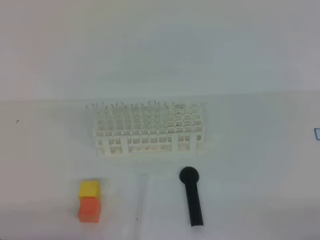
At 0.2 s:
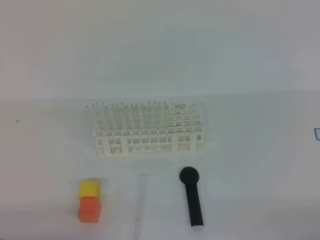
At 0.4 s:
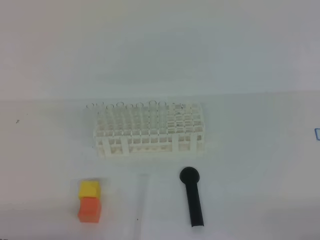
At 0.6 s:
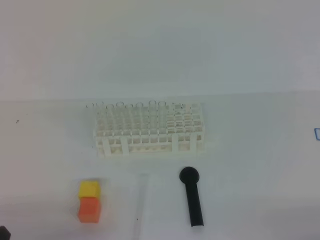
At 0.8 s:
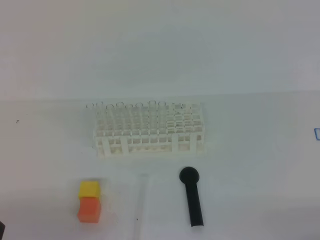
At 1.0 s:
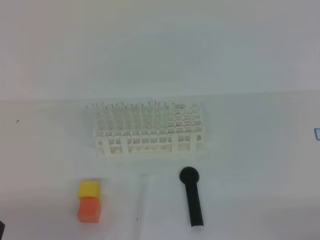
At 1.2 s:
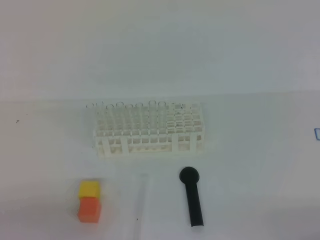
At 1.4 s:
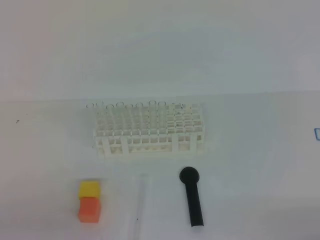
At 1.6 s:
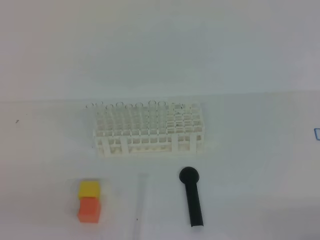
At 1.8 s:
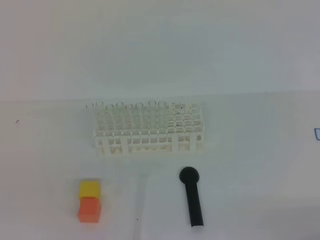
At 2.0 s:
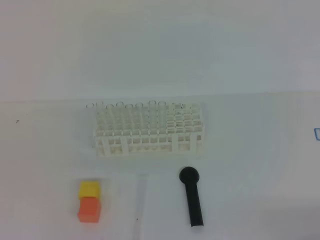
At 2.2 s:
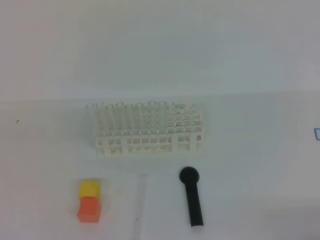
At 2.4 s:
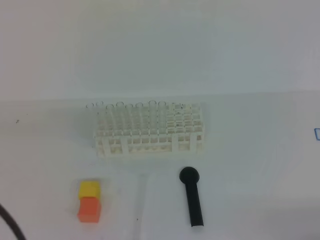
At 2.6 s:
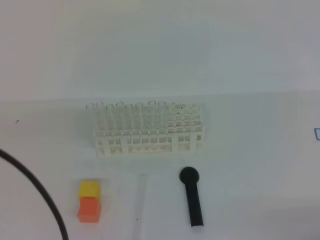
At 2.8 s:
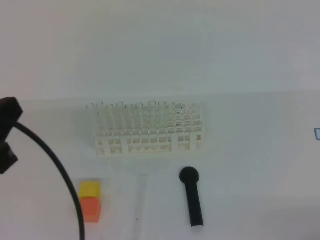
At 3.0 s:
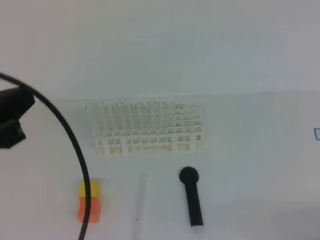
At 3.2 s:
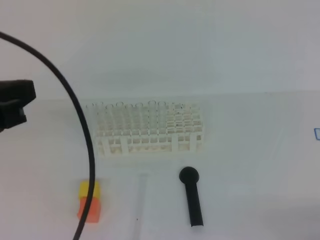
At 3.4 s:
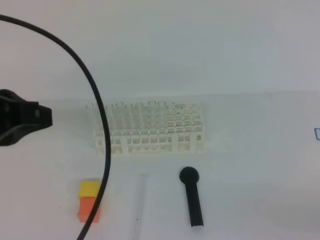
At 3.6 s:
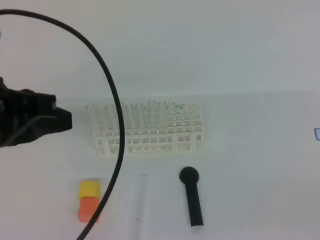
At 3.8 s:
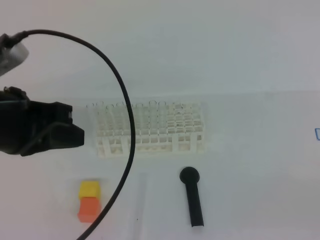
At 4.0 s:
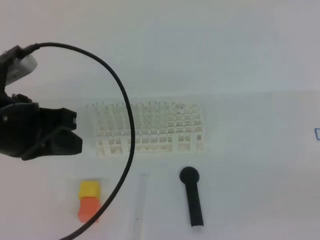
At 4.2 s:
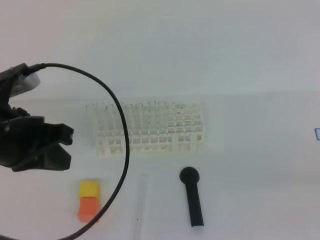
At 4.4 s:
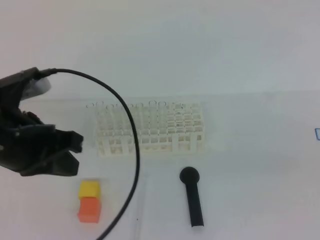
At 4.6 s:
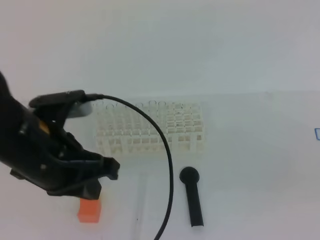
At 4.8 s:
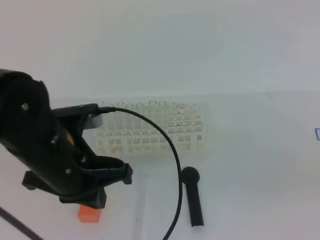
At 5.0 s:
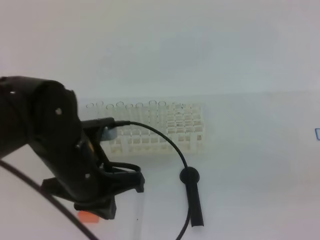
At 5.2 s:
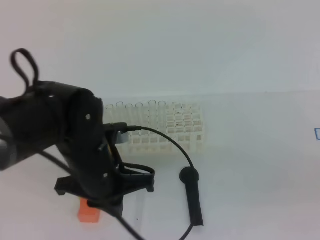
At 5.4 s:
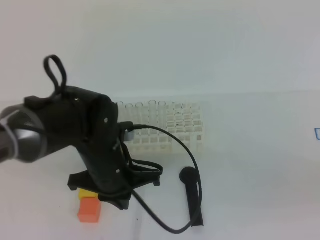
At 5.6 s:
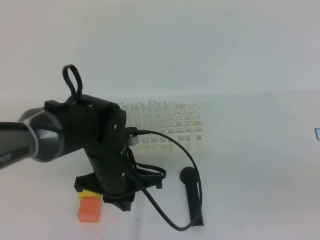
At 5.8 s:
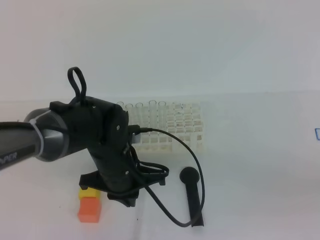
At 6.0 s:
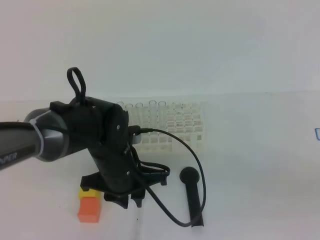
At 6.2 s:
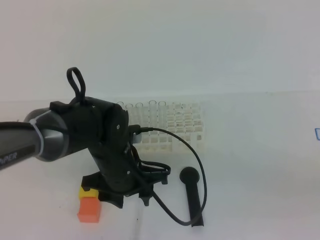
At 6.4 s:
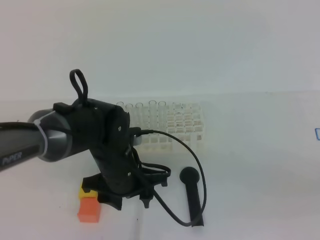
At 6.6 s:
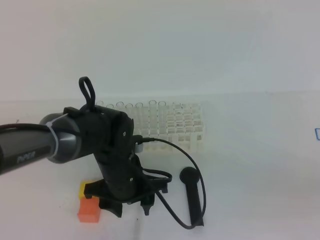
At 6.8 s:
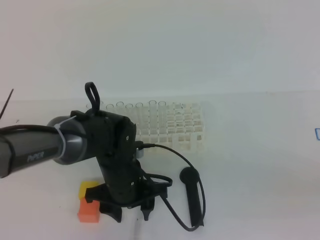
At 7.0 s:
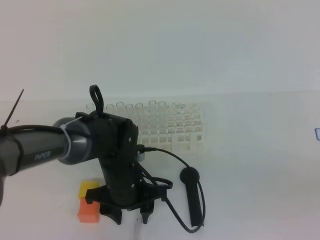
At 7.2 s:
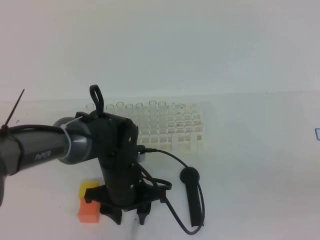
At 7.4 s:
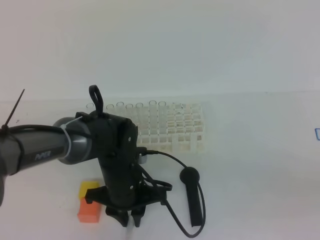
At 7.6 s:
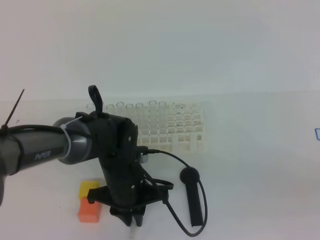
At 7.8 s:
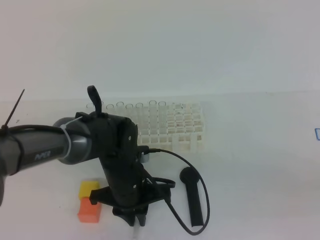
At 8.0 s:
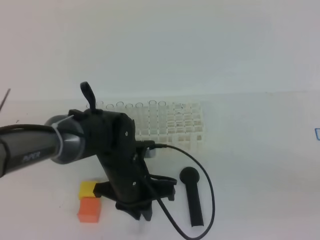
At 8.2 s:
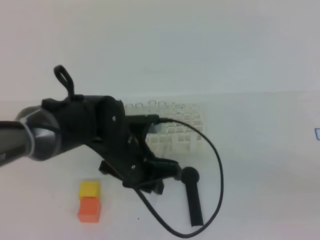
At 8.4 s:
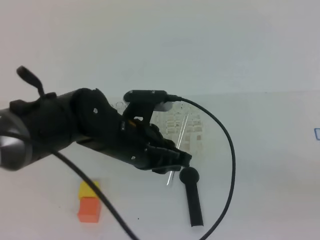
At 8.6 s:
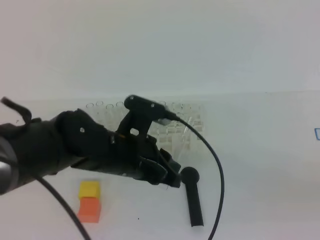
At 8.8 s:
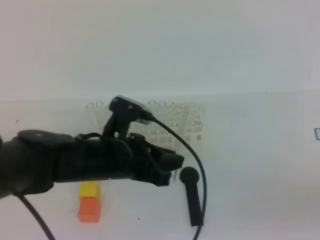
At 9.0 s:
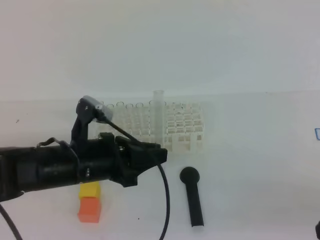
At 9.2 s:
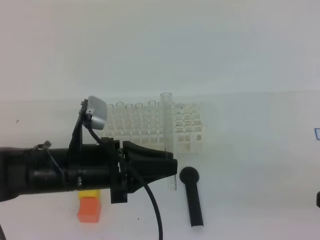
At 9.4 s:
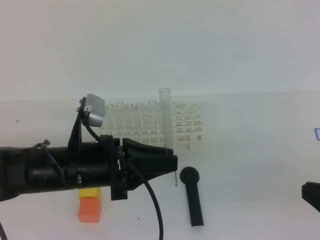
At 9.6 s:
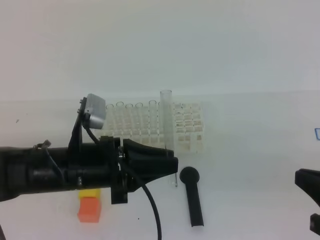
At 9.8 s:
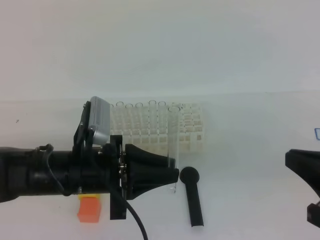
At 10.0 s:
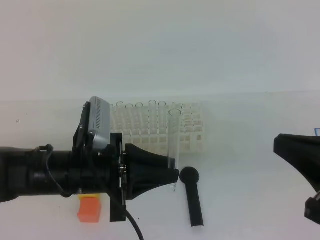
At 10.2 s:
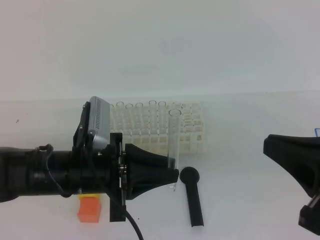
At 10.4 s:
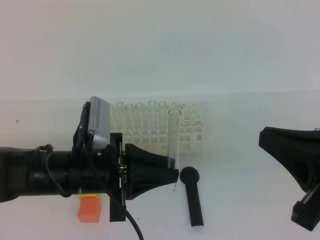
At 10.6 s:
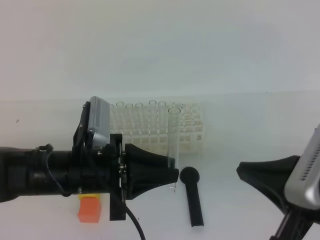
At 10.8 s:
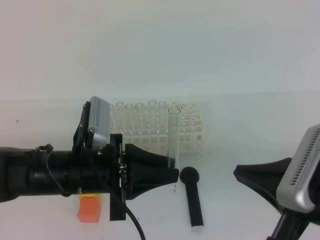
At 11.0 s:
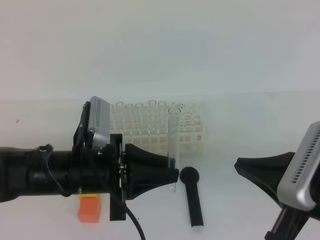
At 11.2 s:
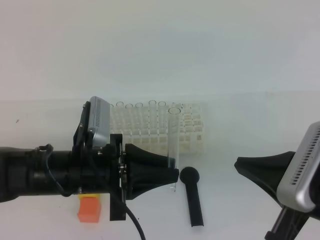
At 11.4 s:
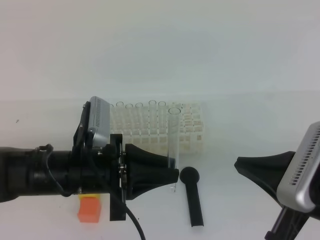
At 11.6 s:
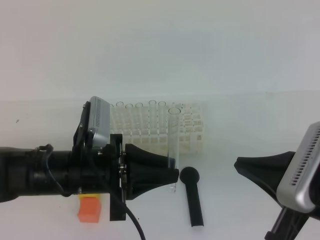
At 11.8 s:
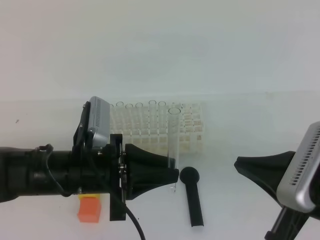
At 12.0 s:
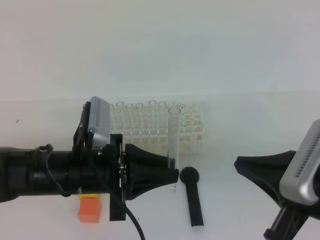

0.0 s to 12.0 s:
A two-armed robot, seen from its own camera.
1.6 to 3.0 s: The left gripper heads upward, forward and to the right, covering approximately 15 cm.
3.0 to 4.4 s: The left gripper shifts roughly 10 cm forward. The right gripper is displaced upward by about 15 cm.
4.4 to 6.0 s: The left gripper goes some 20 cm downward, to the right and forward, and opens up.
6.0 to 7.6 s: The left gripper ends up approximately 5 cm from where it was, and closes up.
7.6 to 9.0 s: The right gripper changes place by some 5 cm. Meanwhile the left gripper heads upward, covering roughly 5 cm.
9.0 to 10.4 s: The right gripper shifts about 5 cm to the left.
10.4 to 12.0 s: The grippers move only a little.

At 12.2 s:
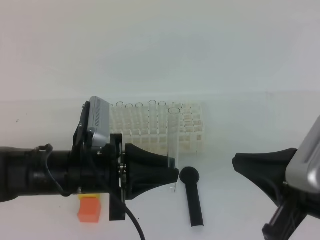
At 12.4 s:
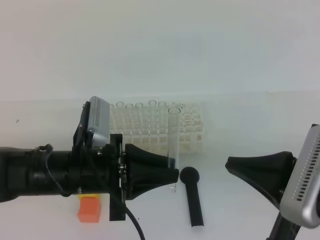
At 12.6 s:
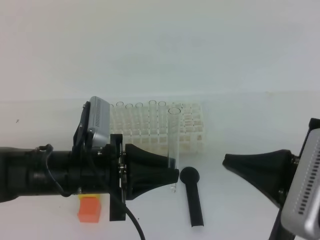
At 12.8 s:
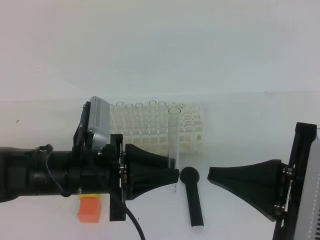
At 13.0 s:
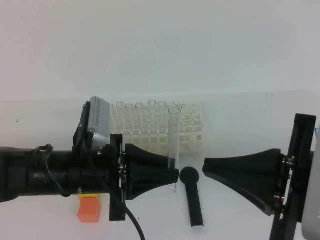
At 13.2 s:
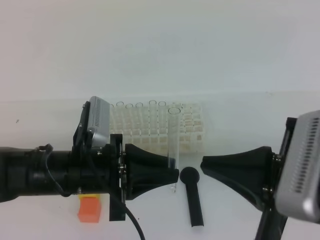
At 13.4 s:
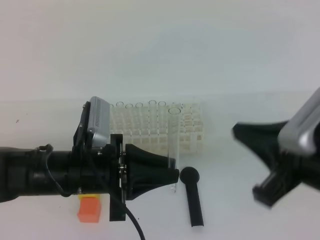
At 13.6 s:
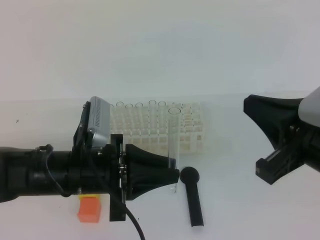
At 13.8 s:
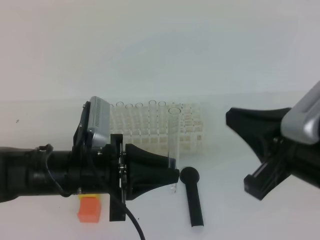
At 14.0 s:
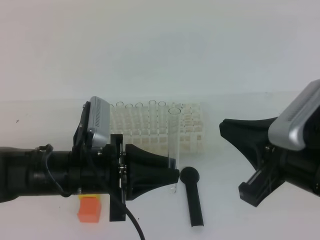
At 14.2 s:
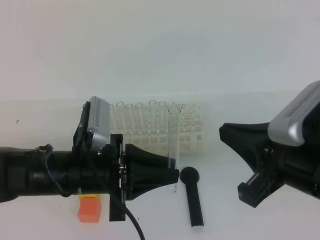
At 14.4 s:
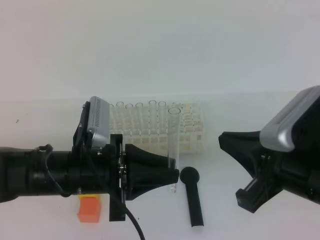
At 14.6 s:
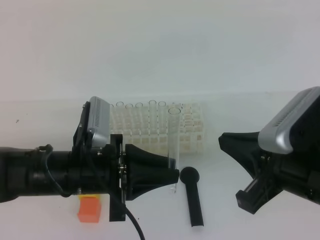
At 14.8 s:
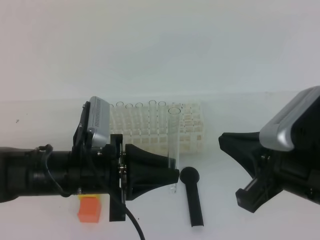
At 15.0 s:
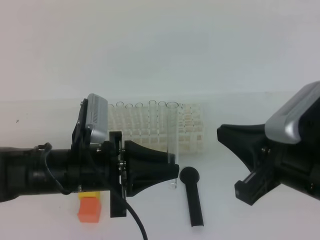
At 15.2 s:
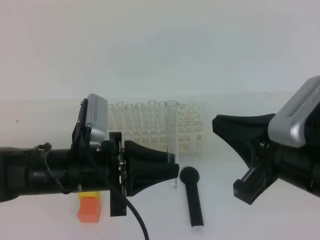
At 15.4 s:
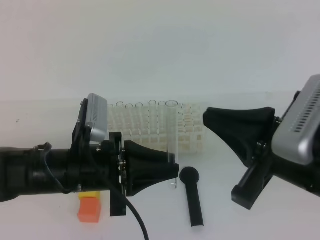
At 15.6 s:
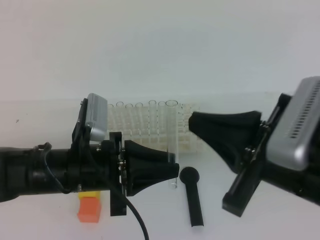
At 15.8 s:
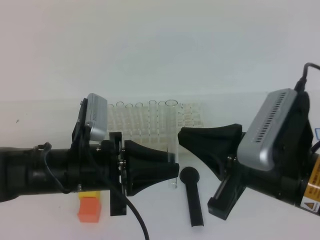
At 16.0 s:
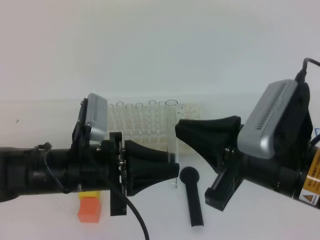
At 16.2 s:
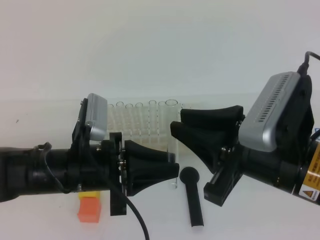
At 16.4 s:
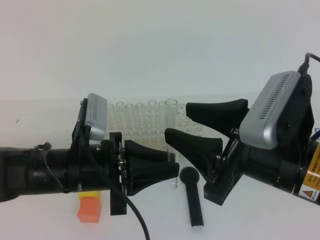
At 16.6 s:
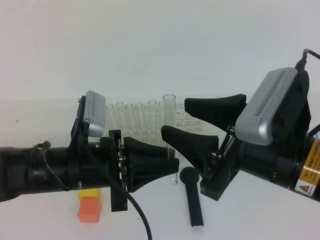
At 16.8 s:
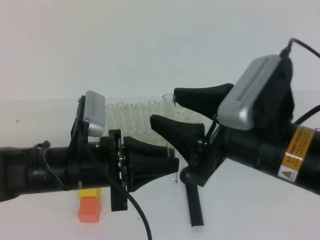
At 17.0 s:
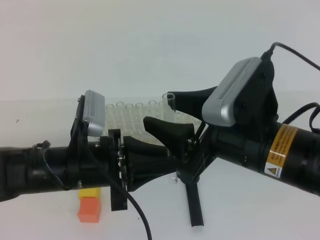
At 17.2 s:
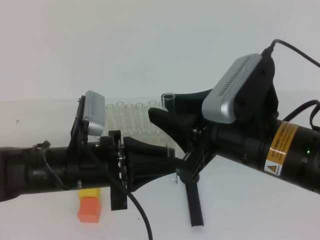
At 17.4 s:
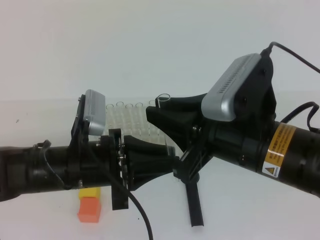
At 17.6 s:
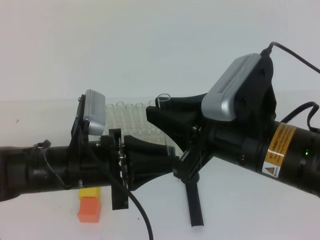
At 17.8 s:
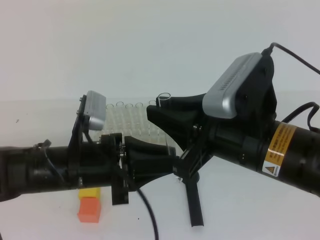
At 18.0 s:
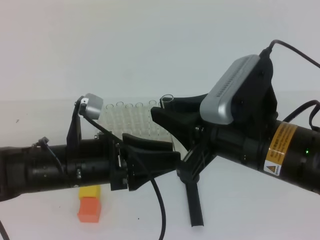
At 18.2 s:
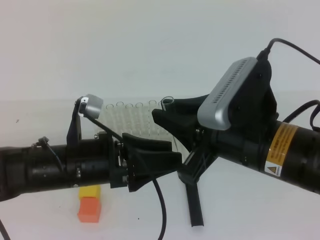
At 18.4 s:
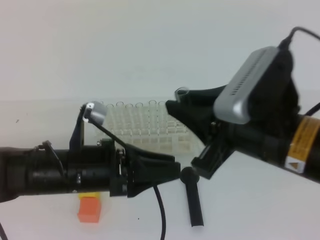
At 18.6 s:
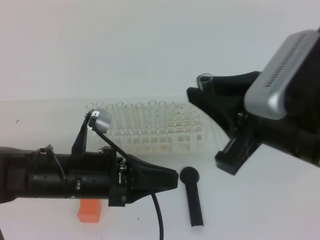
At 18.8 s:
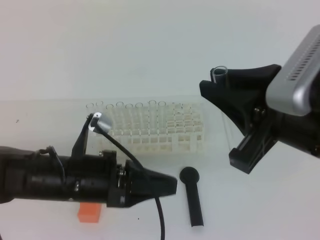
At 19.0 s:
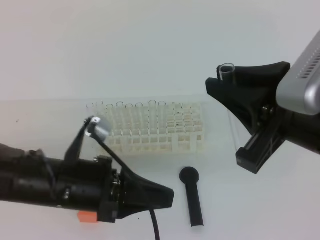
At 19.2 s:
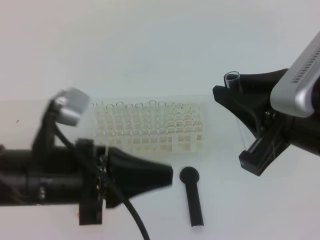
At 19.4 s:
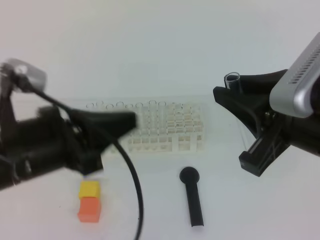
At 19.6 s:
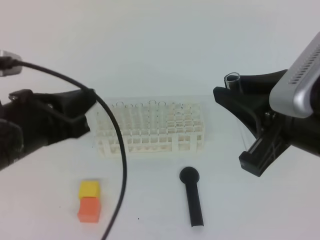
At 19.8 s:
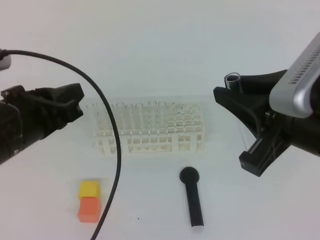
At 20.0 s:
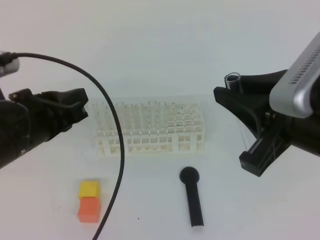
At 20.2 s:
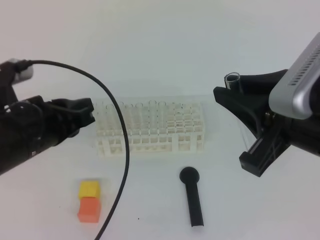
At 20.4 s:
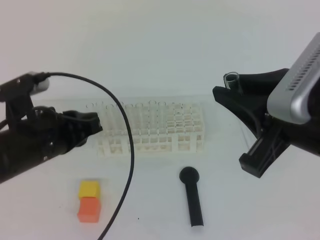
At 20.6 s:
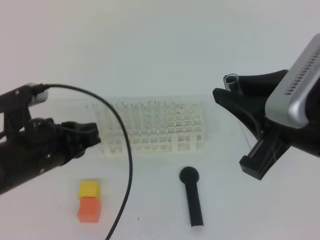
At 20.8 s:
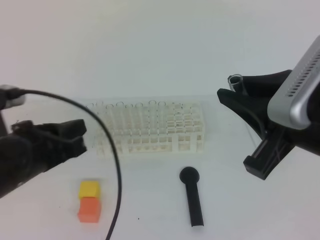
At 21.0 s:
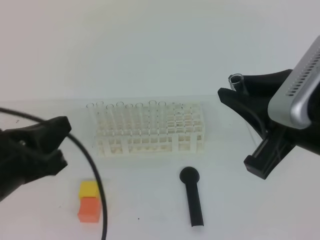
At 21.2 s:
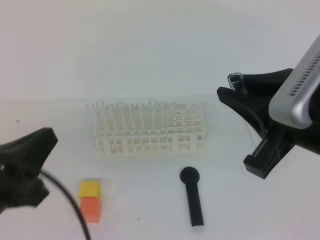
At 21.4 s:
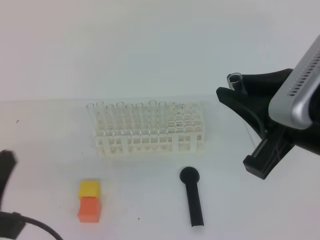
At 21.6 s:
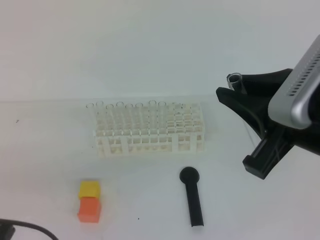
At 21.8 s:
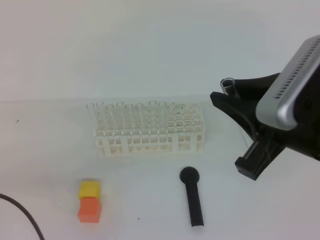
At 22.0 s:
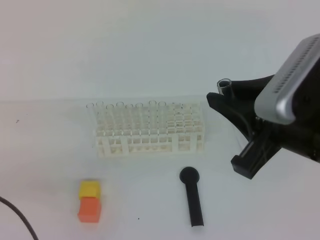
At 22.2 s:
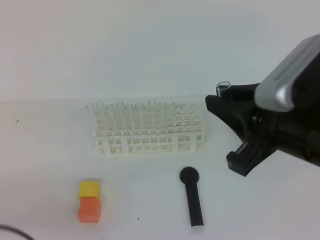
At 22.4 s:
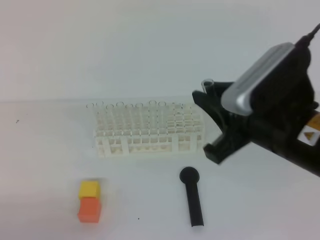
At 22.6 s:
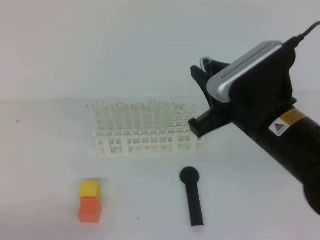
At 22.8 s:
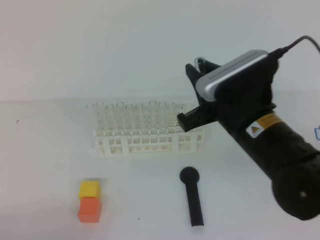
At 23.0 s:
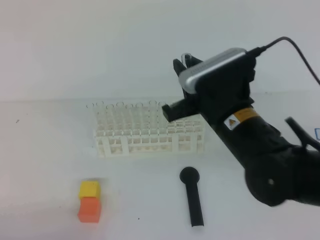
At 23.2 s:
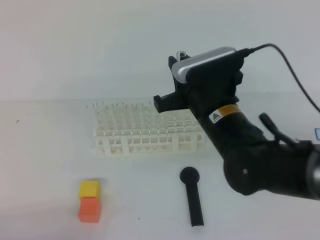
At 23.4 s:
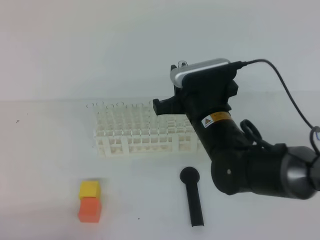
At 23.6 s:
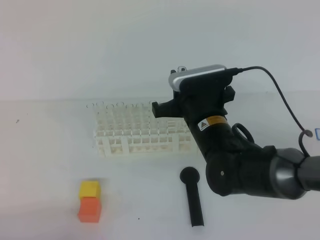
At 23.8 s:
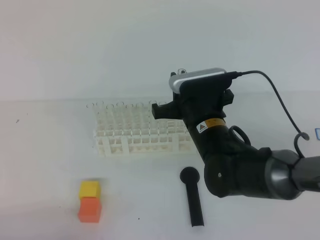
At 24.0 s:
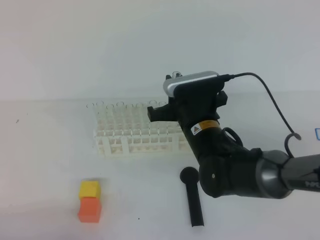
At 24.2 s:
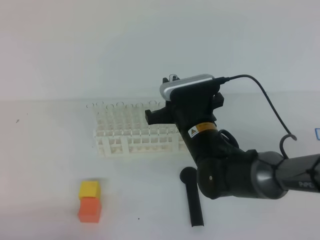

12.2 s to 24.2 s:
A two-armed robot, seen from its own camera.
12.2 to 15.2 s: The grippers move only a little.
15.2 to 16.6 s: The right gripper opens its fingers.
16.6 to 18.2 s: The right gripper closes up. Meanwhile the left gripper opens.
18.2 to 19.8 s: The right gripper goes some 5 cm to the right. Meanwhile the left gripper heads upward and to the left, covering approximately 10 cm, and closes its fingers.
19.8 to 21.2 s: The left gripper heads backward, covering about 10 cm.
21.2 to 22.6 s: The right gripper heads forward and downward, covering roughly 10 cm; the left gripper goes some 15 cm downward, backward and to the left.
22.6 to 24.2 s: The right gripper is displaced downward, forward and to the left by about 15 cm.
